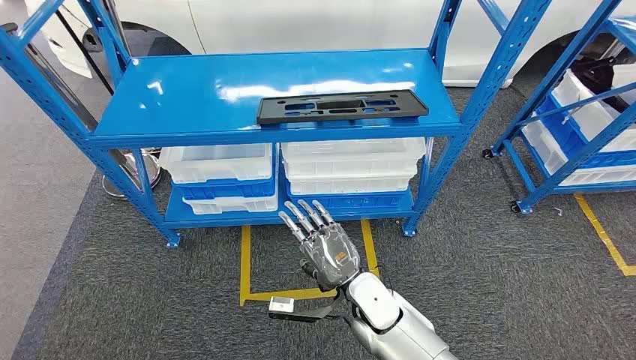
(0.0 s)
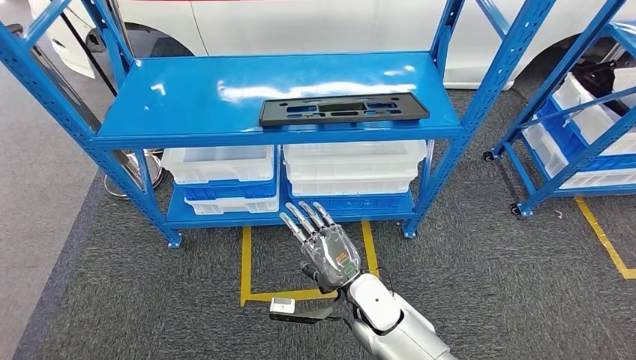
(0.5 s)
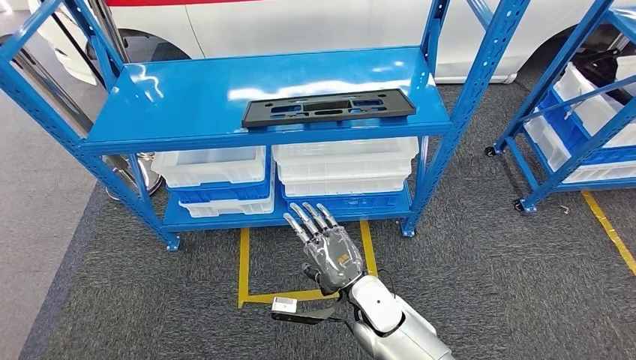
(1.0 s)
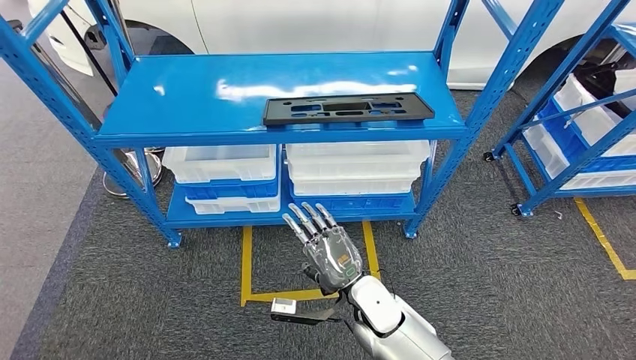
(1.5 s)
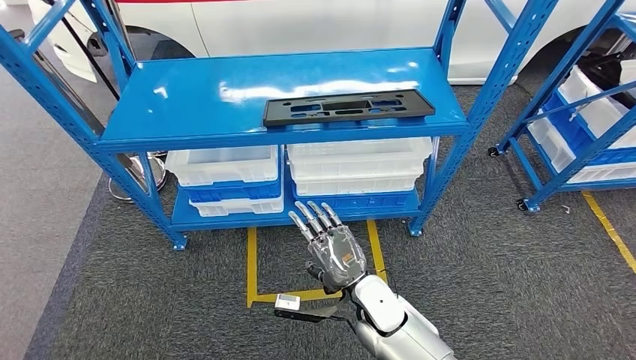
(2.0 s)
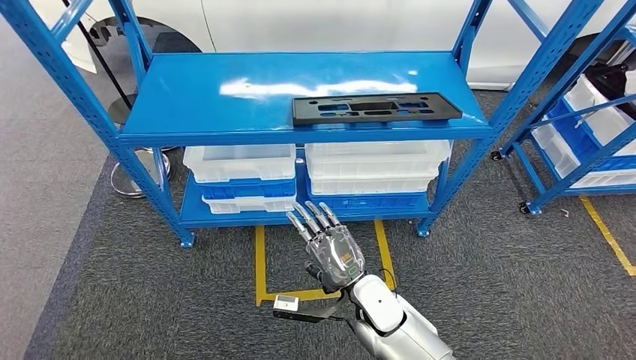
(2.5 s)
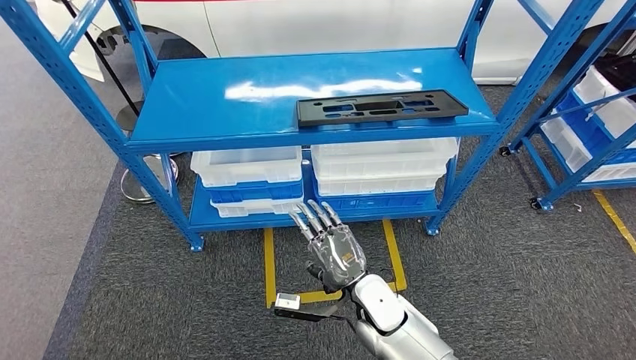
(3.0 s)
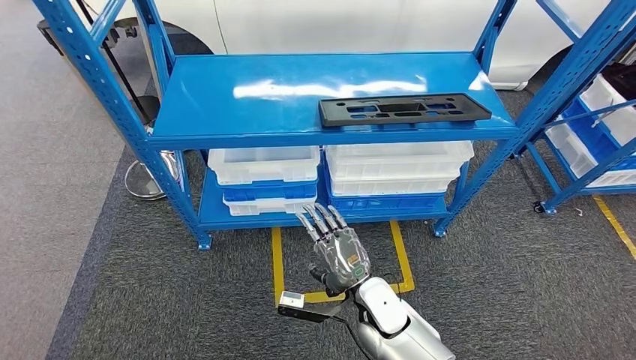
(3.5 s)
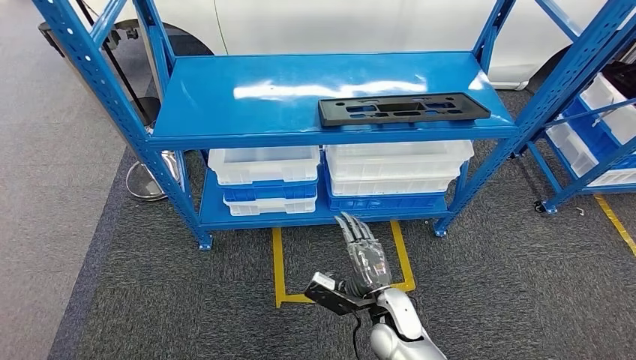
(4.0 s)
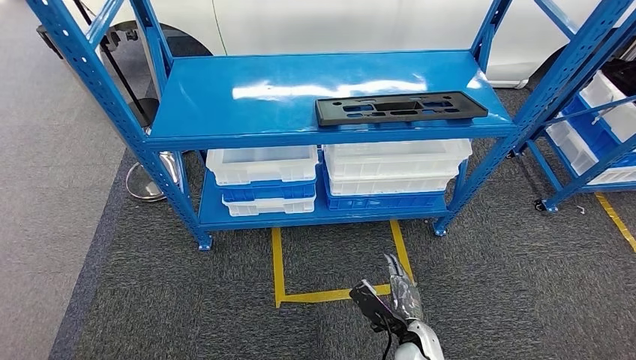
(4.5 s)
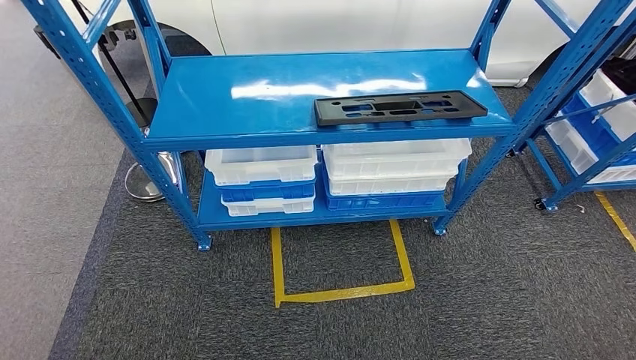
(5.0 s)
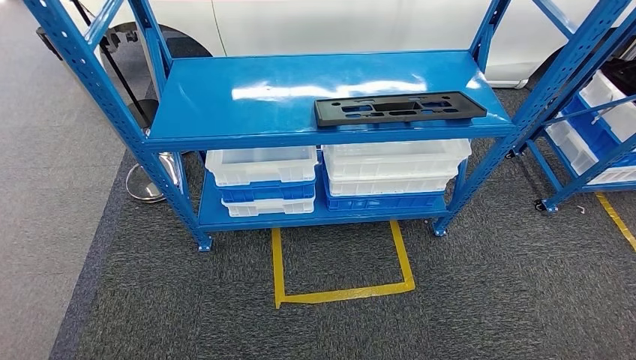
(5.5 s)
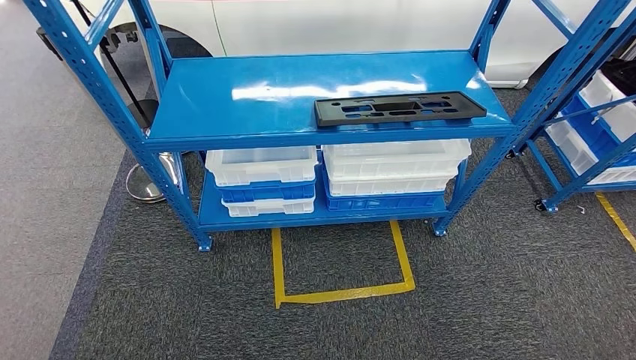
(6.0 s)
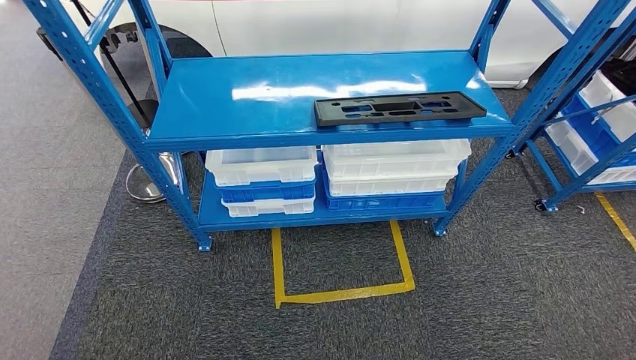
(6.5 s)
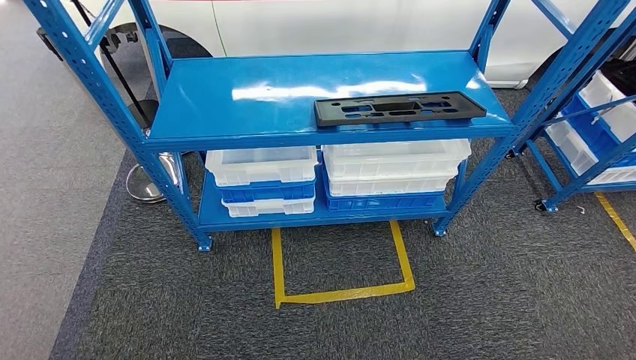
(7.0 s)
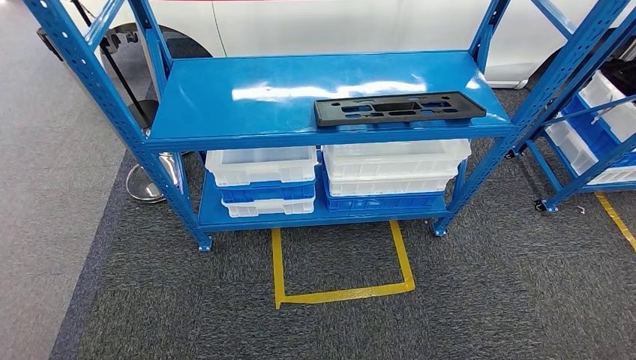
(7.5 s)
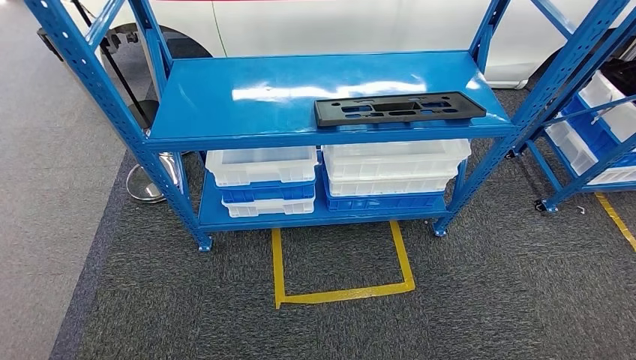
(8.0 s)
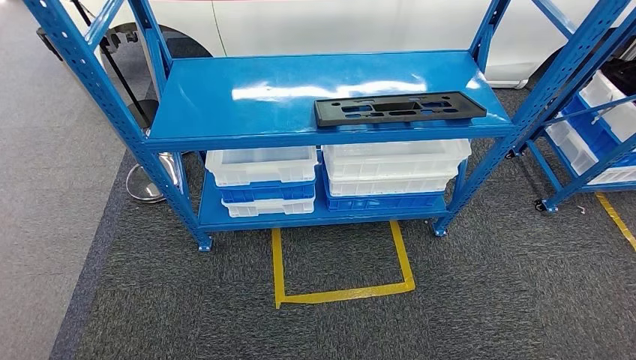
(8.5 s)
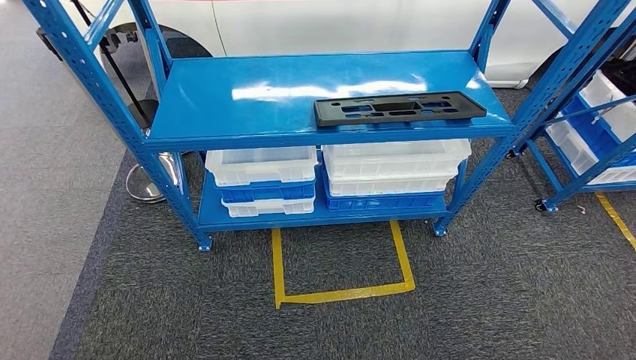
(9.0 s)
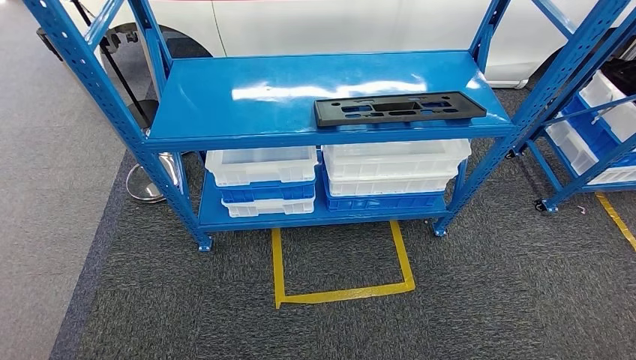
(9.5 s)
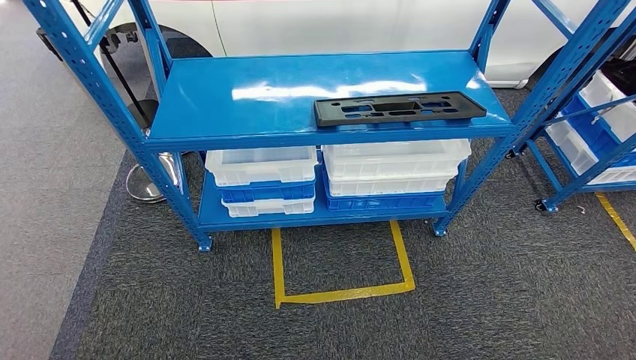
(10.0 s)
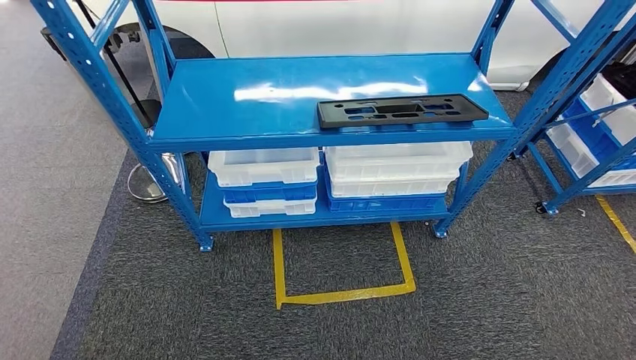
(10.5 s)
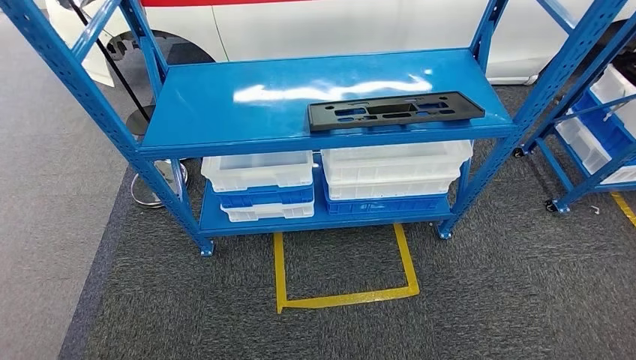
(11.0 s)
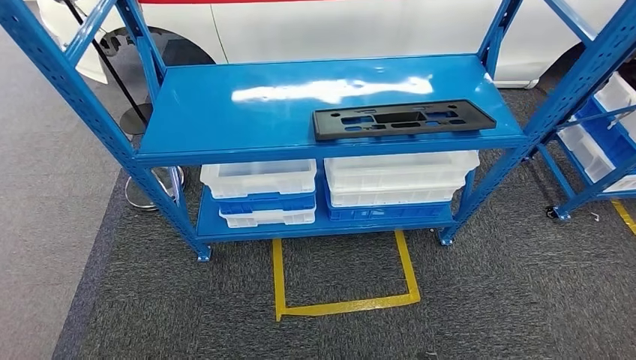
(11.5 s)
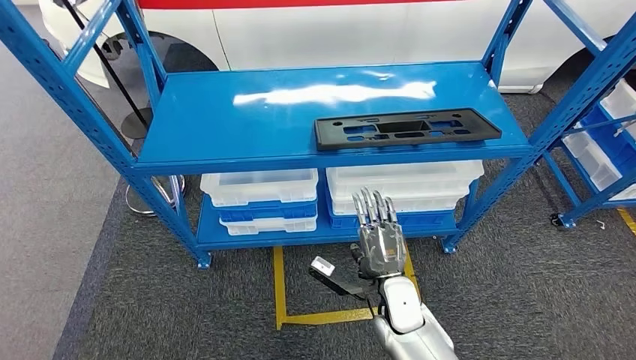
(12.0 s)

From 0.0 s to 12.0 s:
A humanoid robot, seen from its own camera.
From 4.0 s to 6.0 s: The right hand heads backward, downward and to the right, covering approximately 30 cm.

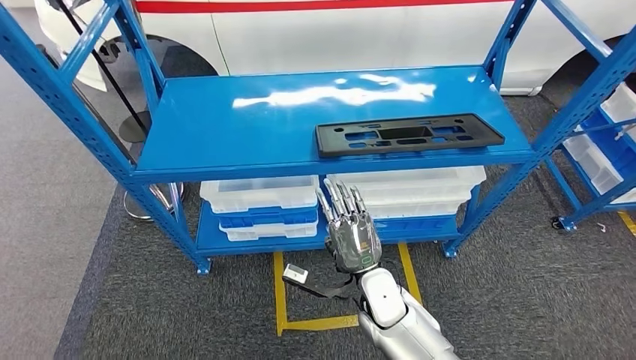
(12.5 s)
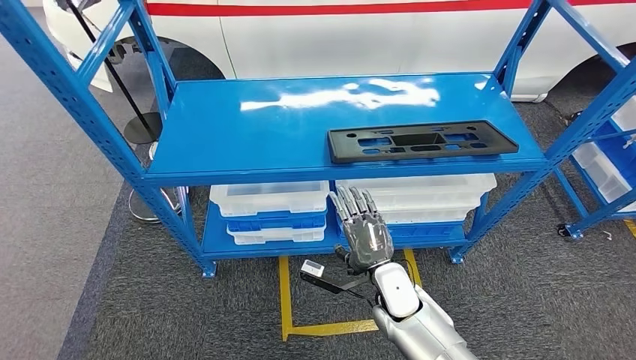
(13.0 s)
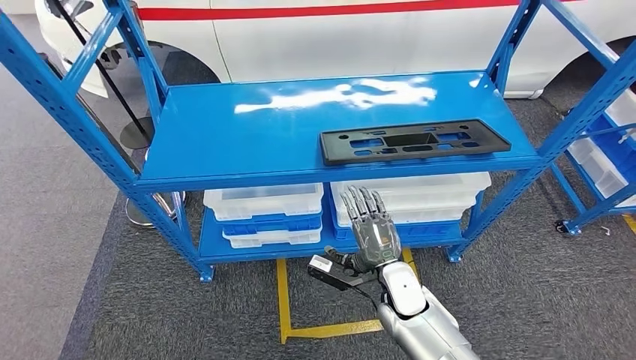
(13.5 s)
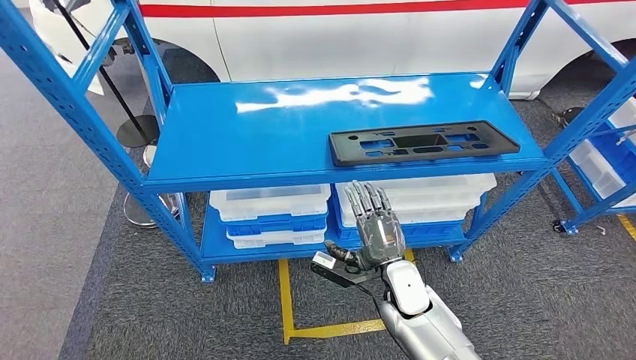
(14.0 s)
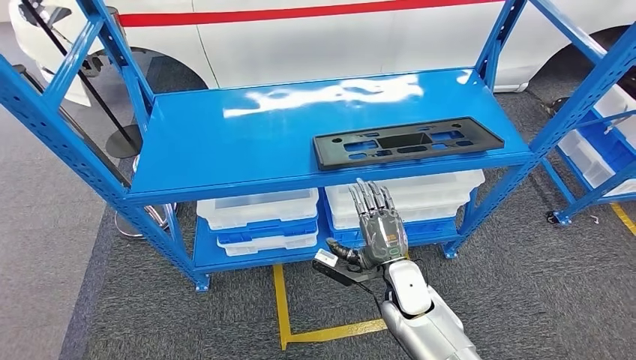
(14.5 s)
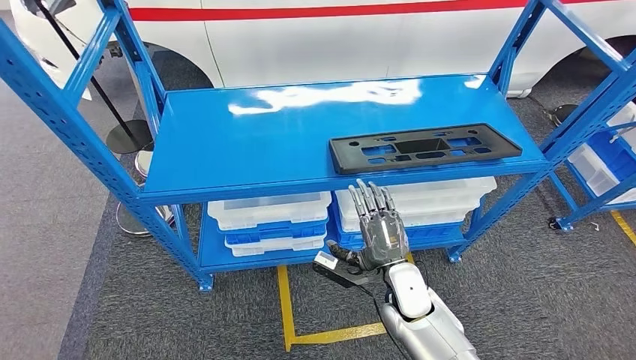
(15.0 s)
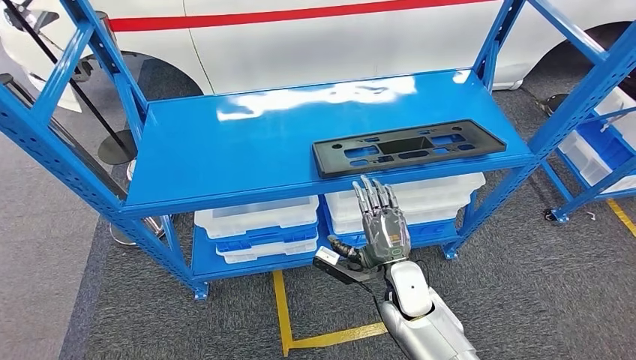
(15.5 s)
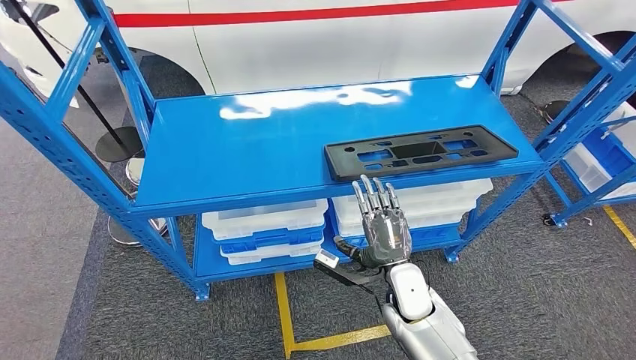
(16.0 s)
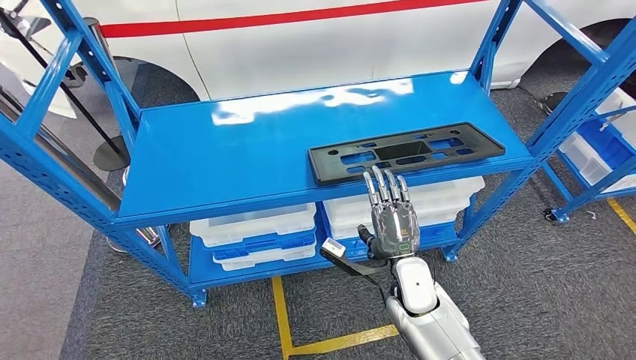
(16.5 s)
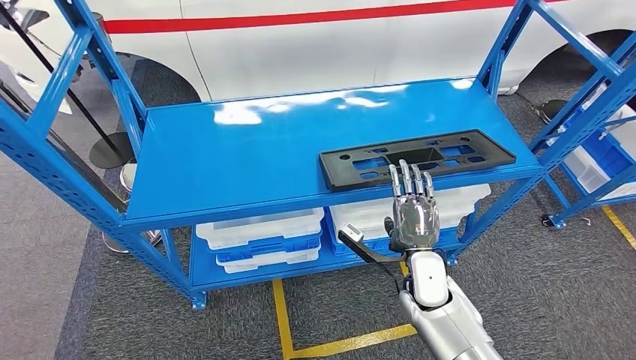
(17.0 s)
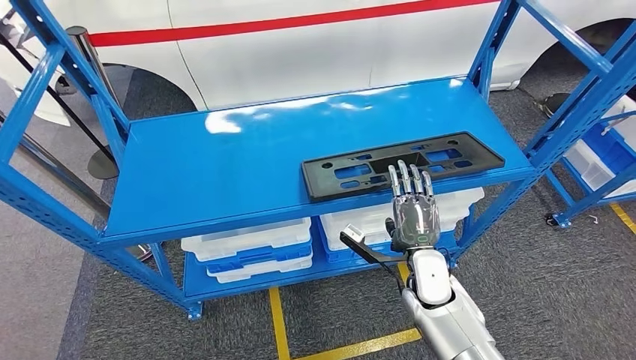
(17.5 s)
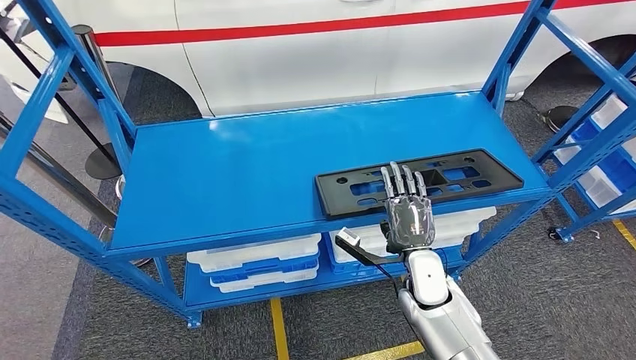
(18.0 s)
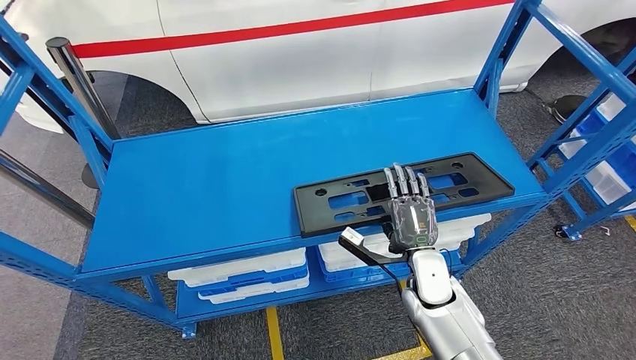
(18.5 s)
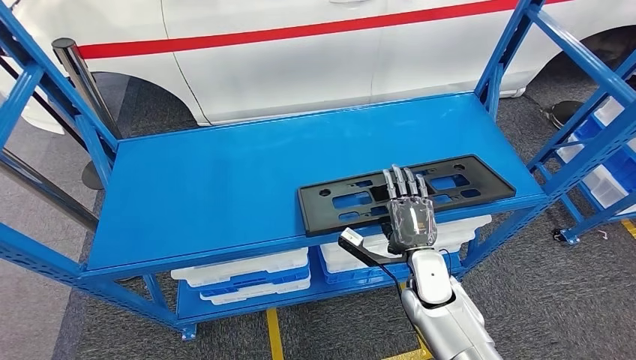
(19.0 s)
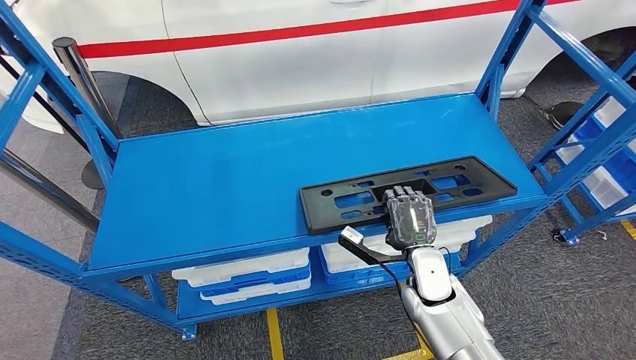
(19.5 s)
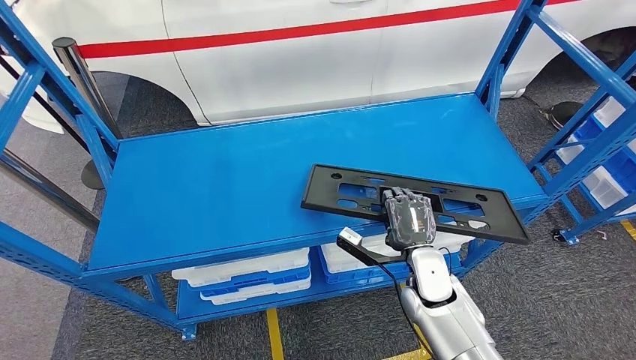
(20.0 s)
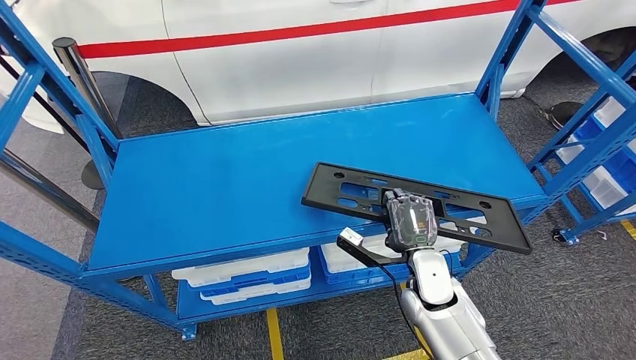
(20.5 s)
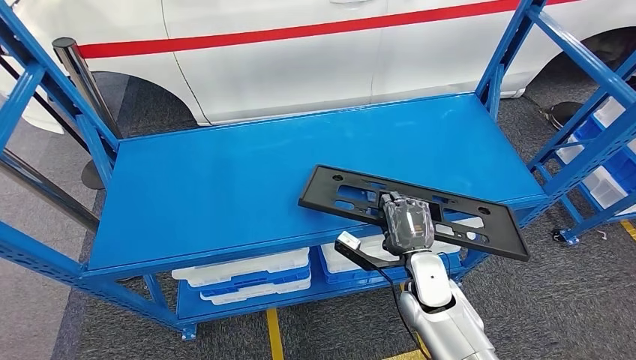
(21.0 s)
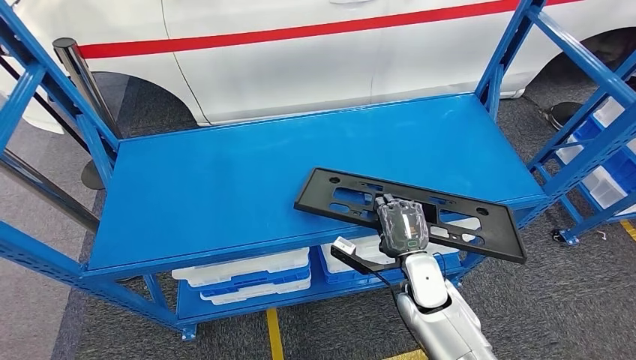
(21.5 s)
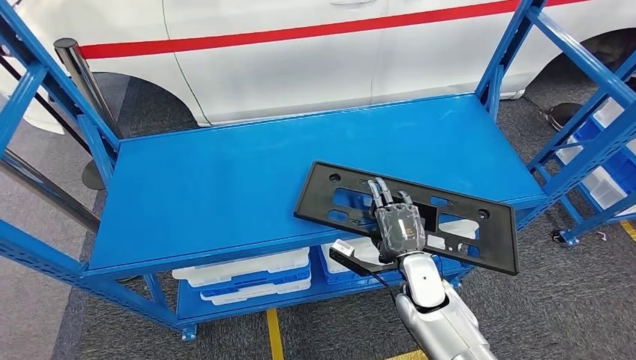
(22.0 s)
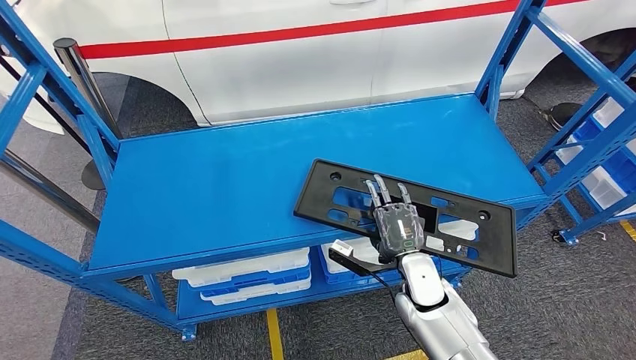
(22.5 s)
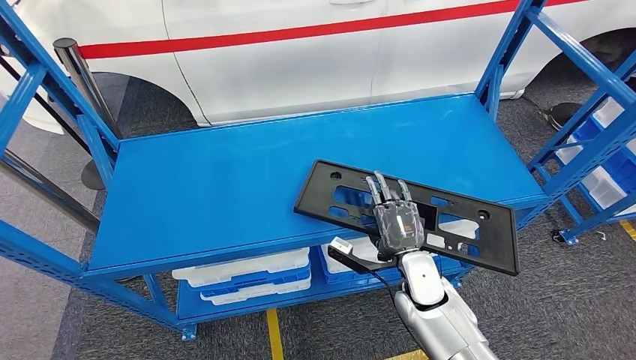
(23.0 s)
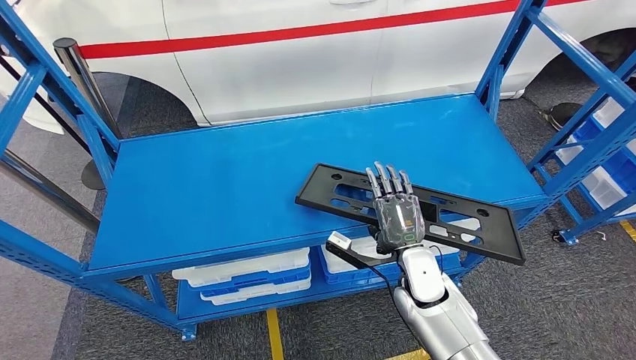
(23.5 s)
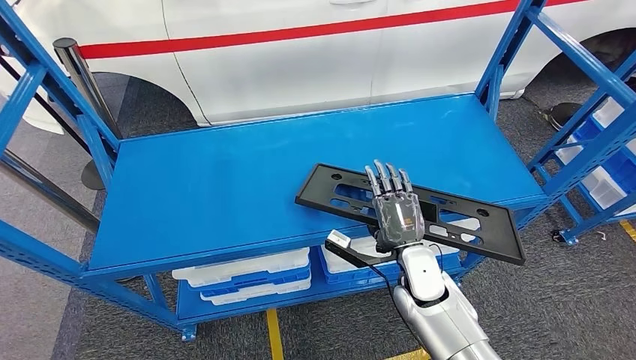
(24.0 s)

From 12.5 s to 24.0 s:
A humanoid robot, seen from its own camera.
From 18.5 s to 20.0 s: Both hands stay about where they are.
From 20.0 s to 24.0 s: The hands move only a little.
